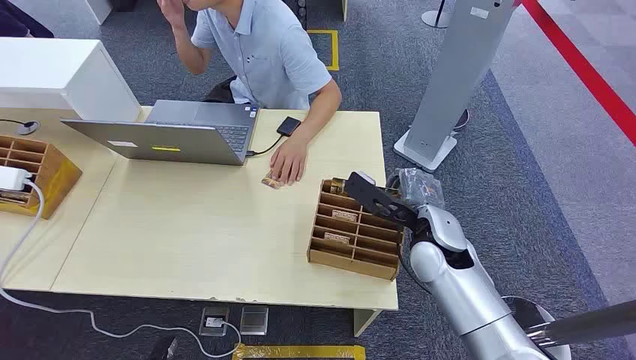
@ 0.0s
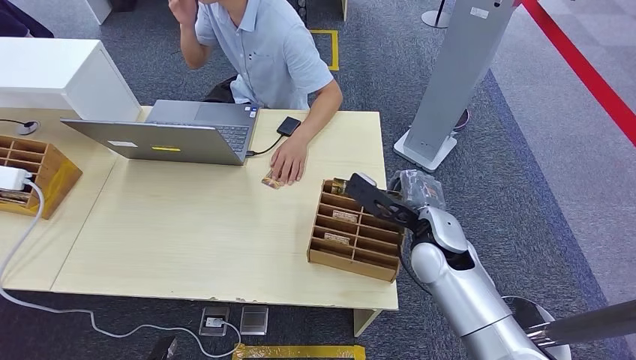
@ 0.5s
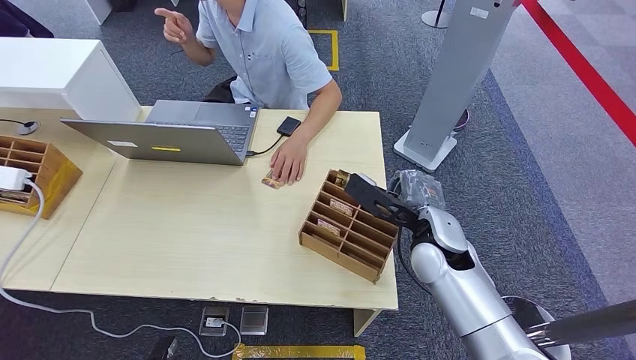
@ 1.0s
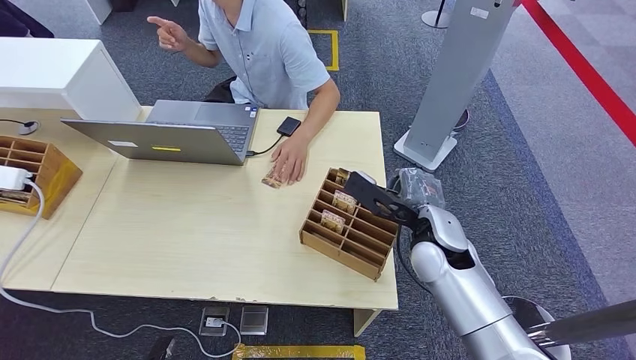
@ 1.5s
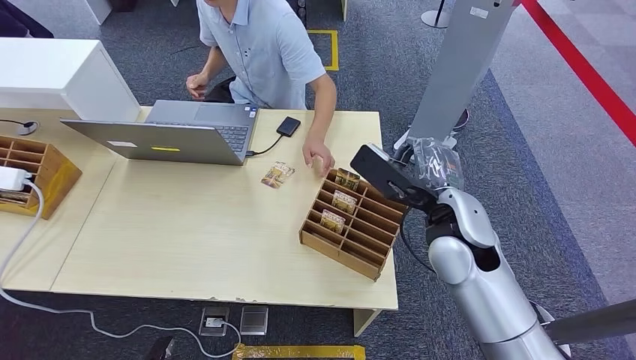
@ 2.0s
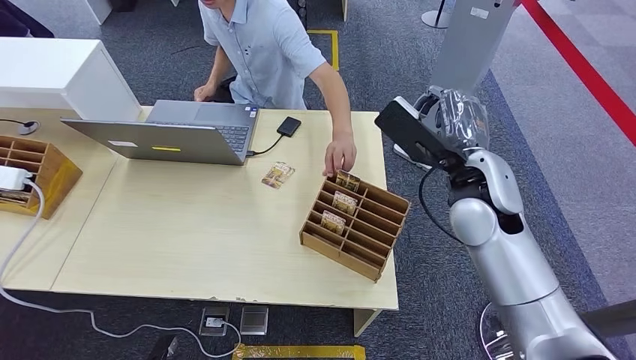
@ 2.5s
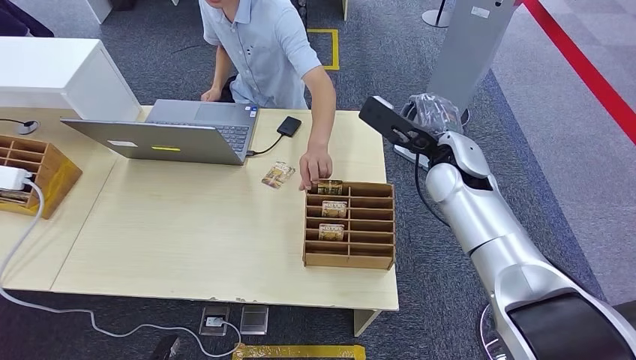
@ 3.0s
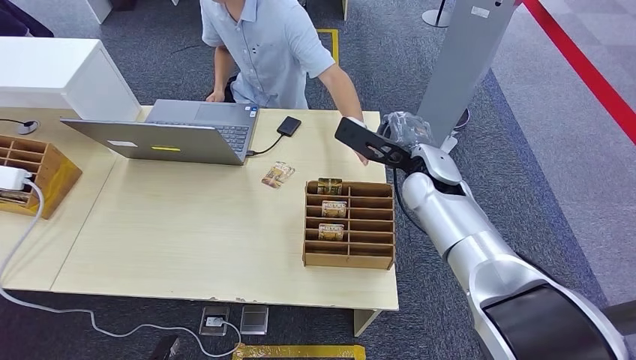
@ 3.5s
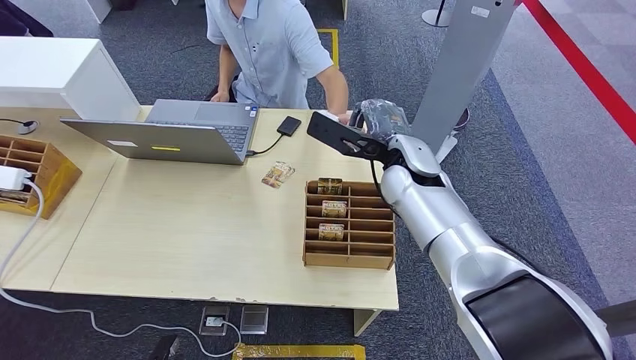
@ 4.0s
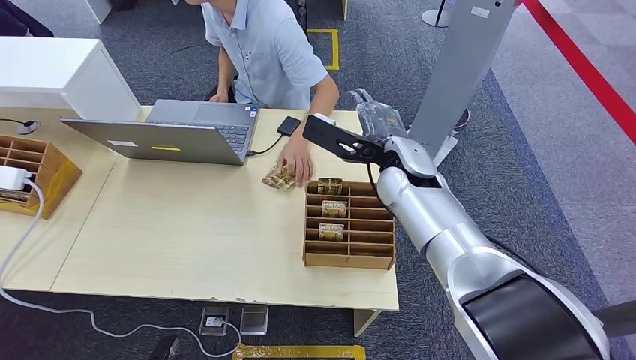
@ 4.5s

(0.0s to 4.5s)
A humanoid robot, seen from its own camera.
Step, 0.0s - 2.0s: Pick up the room card from the card holder.
Step, 3.0s - 4.0s: Hand the room card to the target.
2.0s - 4.5s: The right hand travels forward and to the left by approximately 10 cm.
